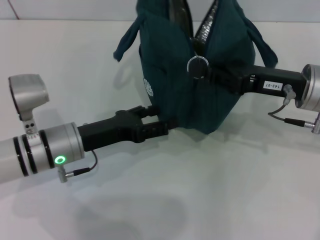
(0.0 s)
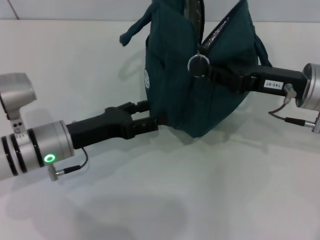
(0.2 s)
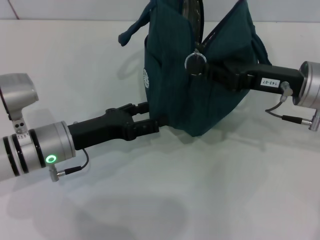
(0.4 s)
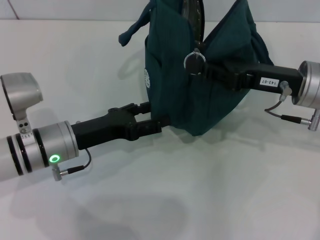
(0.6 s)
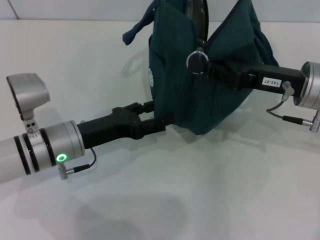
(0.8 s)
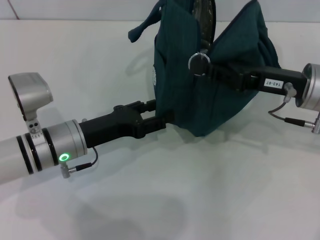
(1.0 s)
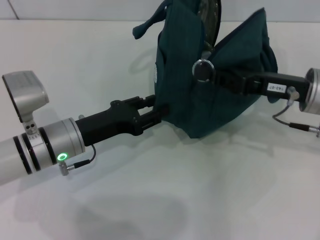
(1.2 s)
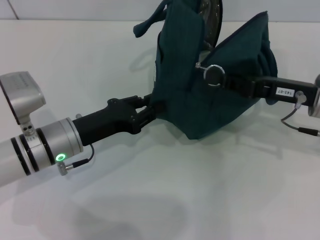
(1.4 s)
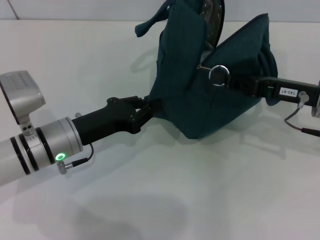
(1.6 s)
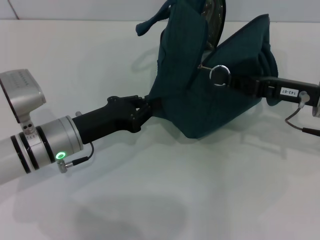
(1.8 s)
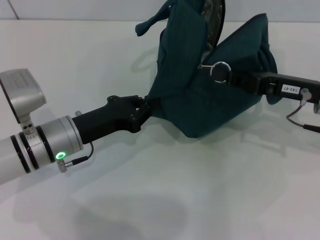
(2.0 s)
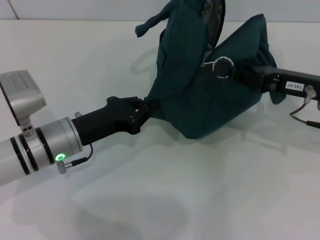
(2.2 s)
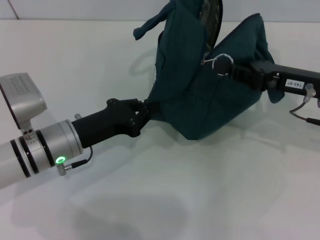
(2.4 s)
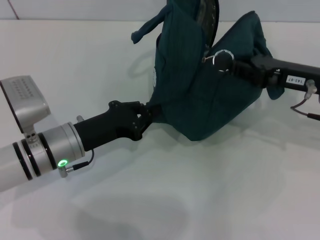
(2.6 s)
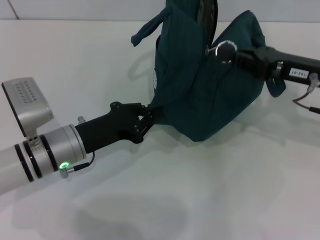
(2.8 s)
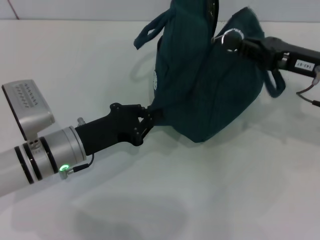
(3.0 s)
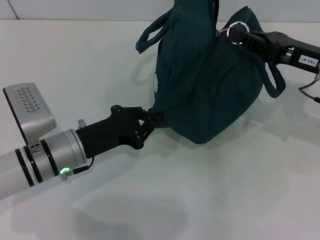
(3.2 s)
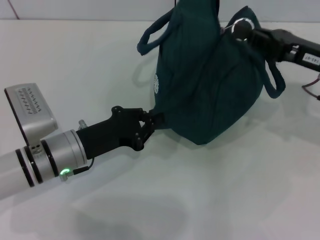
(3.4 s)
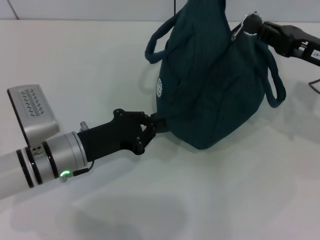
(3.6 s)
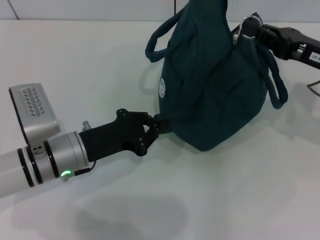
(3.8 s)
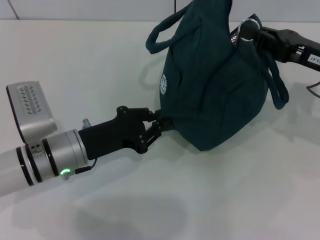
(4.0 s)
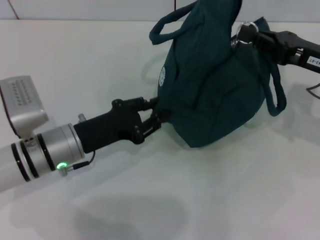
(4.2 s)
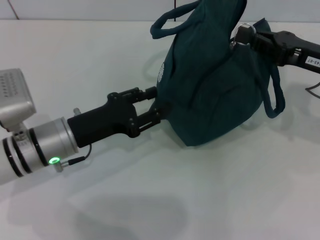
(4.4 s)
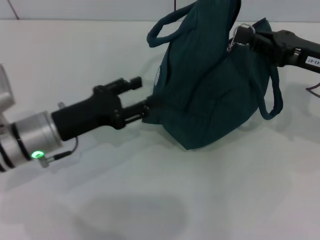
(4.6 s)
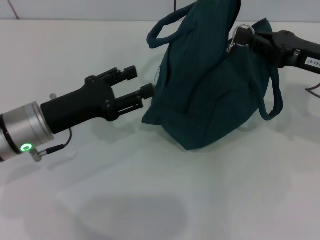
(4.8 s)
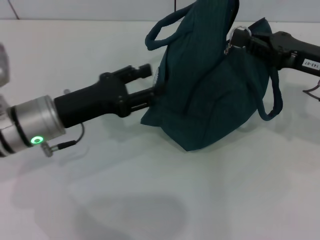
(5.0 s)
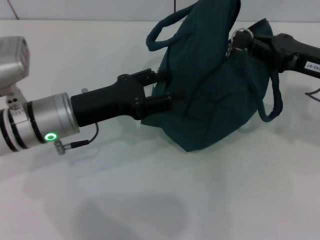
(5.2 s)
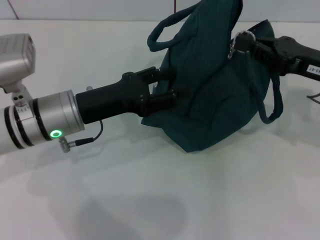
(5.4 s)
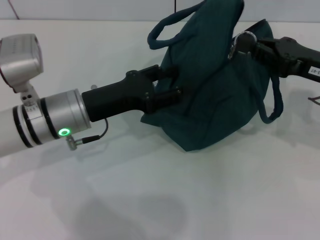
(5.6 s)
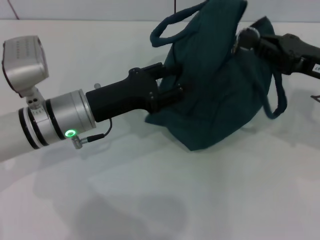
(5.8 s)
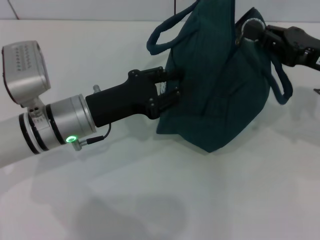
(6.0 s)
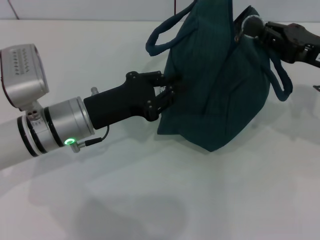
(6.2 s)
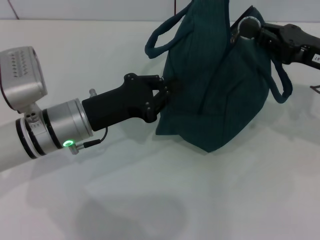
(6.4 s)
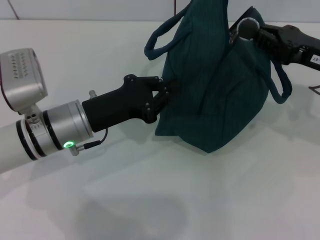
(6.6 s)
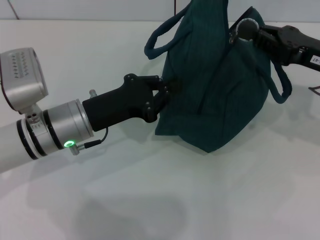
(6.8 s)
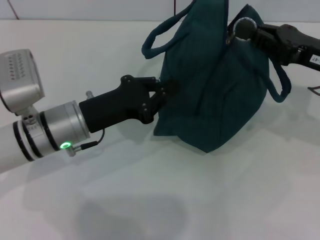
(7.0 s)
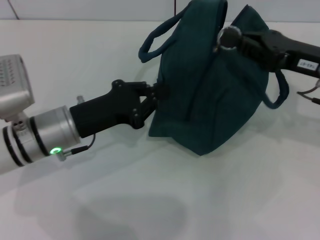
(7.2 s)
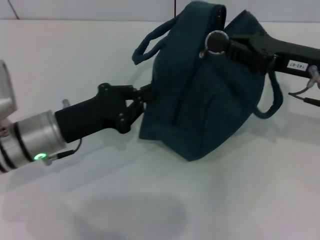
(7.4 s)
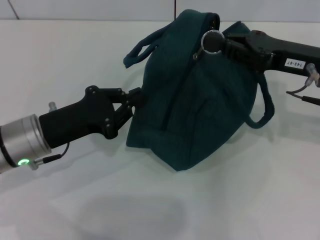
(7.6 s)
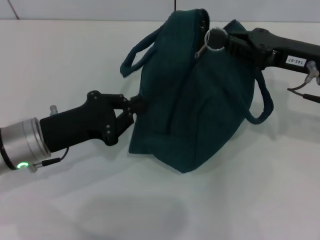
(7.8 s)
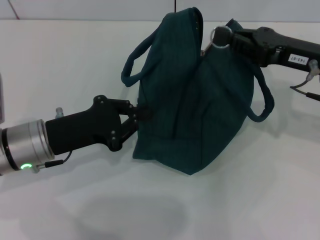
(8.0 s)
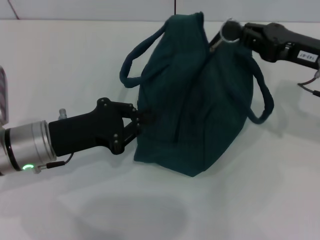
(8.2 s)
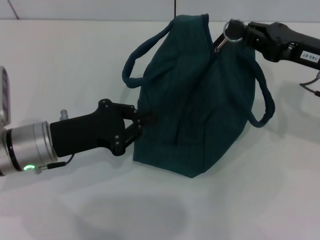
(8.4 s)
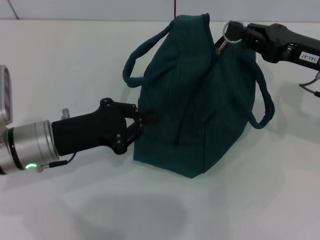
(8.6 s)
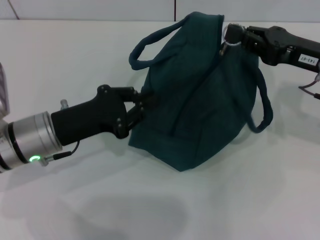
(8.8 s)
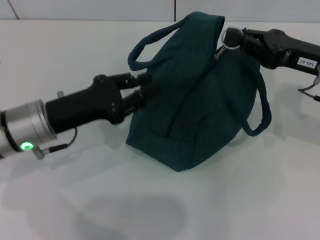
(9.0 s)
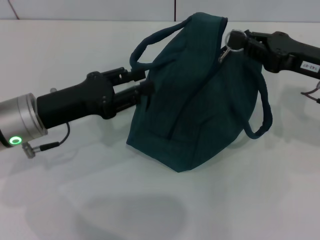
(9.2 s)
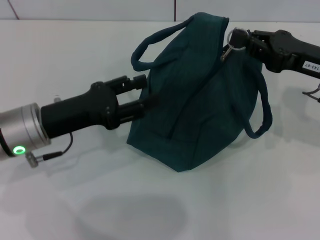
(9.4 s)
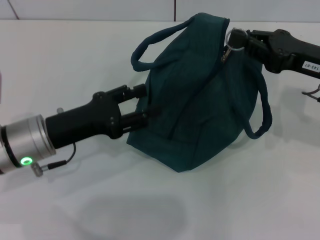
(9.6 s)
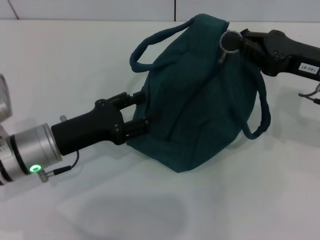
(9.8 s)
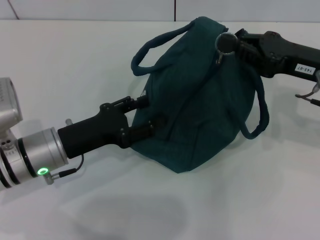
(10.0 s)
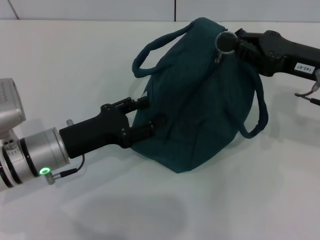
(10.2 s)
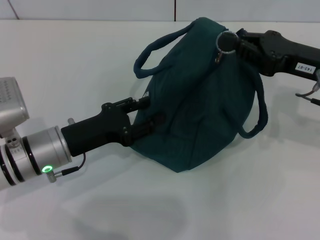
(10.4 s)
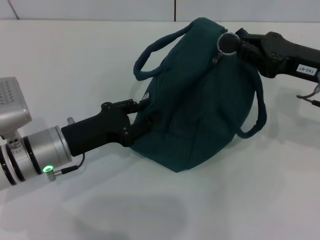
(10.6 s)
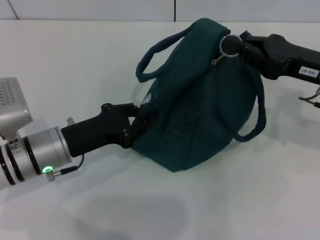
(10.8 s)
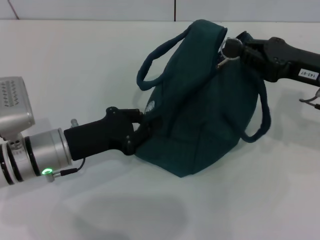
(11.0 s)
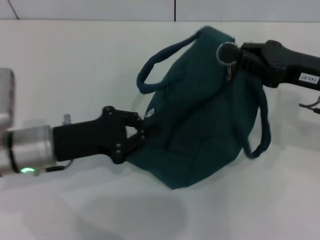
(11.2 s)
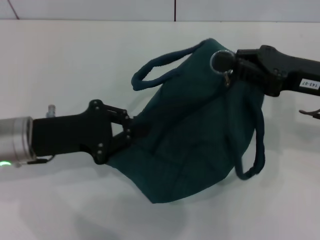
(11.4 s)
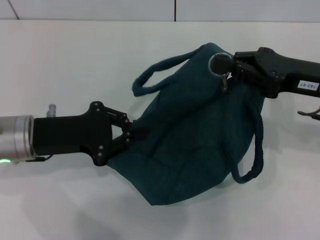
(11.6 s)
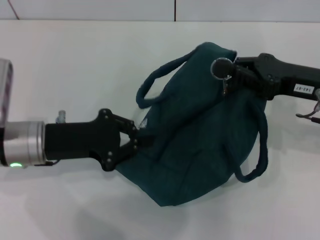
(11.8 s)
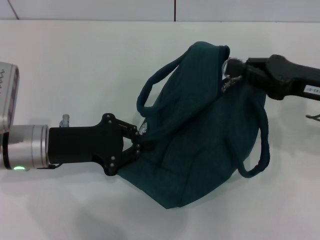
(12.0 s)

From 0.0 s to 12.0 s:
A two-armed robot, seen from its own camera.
From 0.0 s to 1.6 s: The left gripper closes up.
From 1.6 s to 3.0 s: The left gripper closes up.
From 3.0 s to 4.4 s: The grippers stay close to where they were, moving slightly.
From 6.0 s to 7.6 s: The left gripper heads to the left, covering roughly 5 cm, and closes.
From 7.6 s to 9.0 s: The grippers stay close to where they were, moving slightly.
From 9.0 s to 10.4 s: The left gripper opens.
From 10.4 s to 12.0 s: The left gripper closes its fingers.

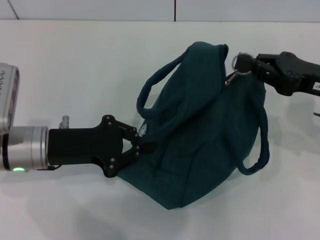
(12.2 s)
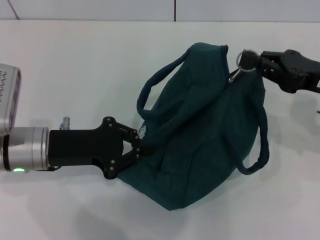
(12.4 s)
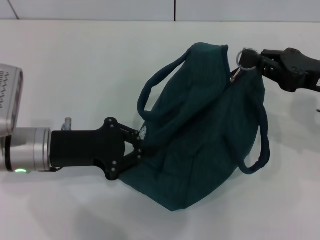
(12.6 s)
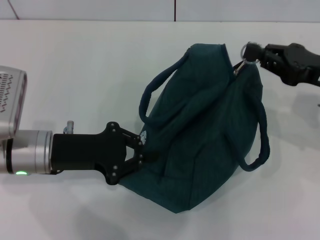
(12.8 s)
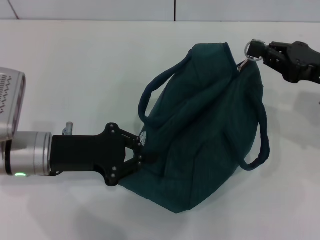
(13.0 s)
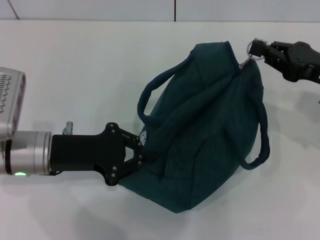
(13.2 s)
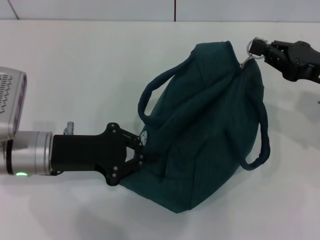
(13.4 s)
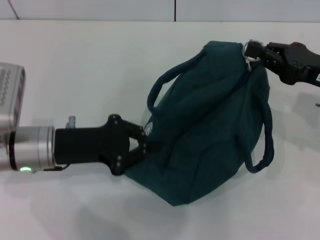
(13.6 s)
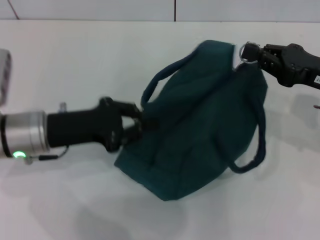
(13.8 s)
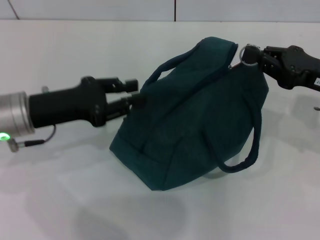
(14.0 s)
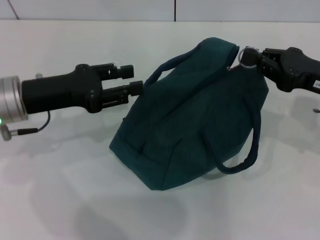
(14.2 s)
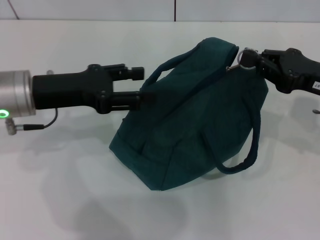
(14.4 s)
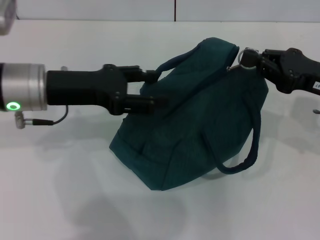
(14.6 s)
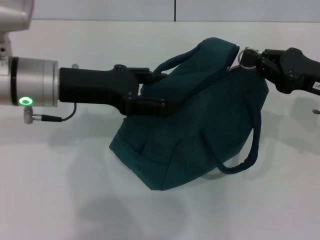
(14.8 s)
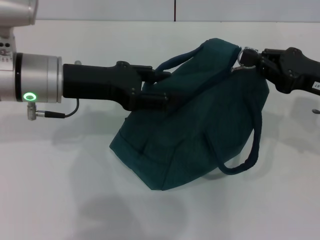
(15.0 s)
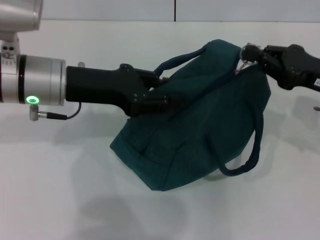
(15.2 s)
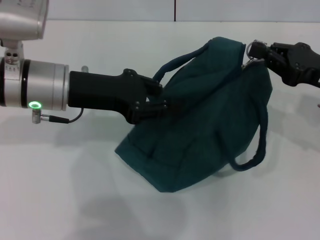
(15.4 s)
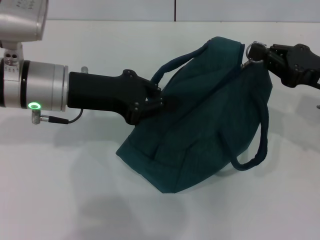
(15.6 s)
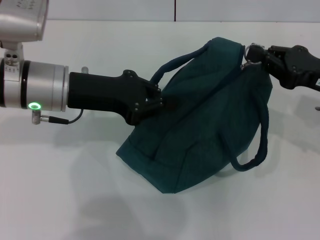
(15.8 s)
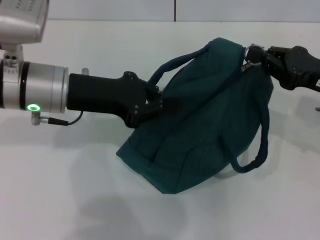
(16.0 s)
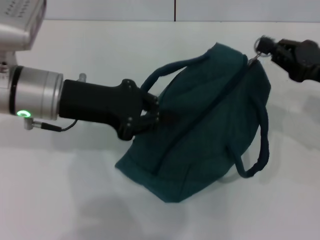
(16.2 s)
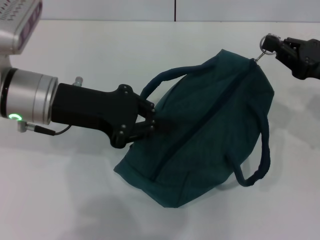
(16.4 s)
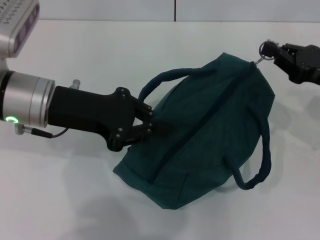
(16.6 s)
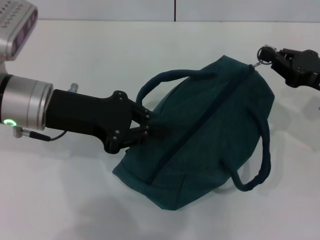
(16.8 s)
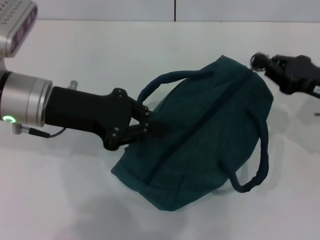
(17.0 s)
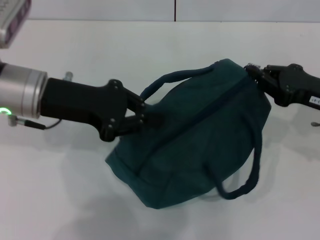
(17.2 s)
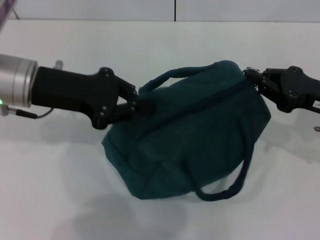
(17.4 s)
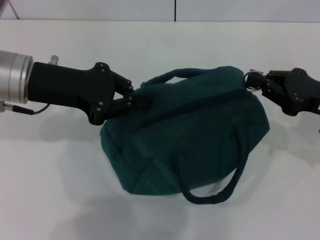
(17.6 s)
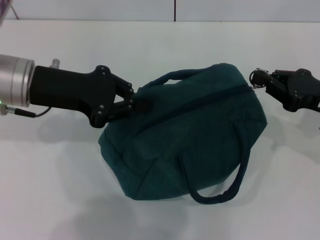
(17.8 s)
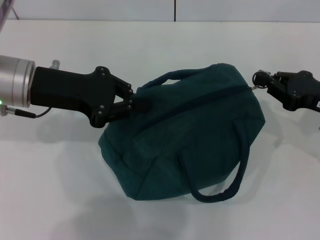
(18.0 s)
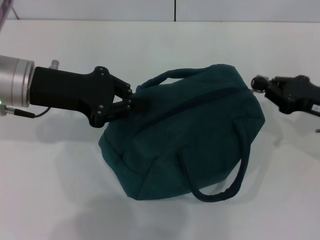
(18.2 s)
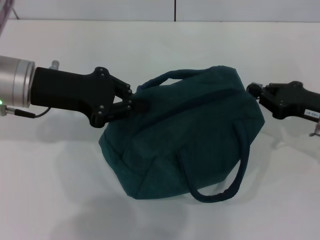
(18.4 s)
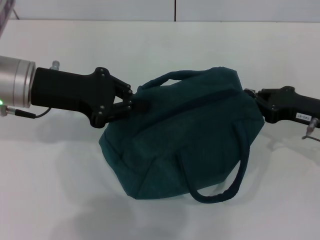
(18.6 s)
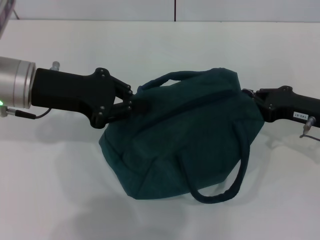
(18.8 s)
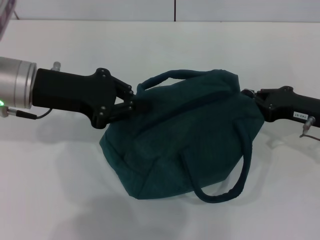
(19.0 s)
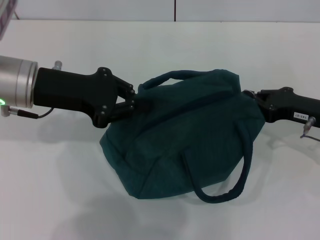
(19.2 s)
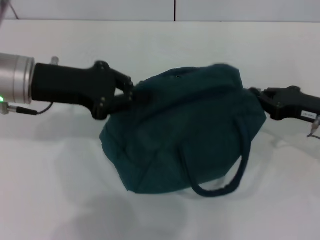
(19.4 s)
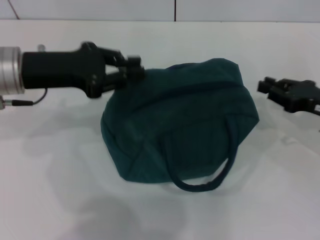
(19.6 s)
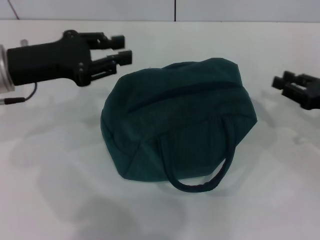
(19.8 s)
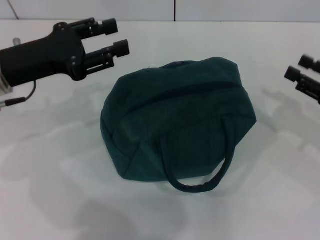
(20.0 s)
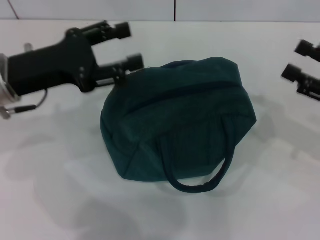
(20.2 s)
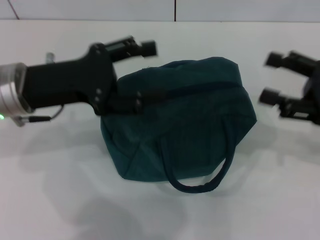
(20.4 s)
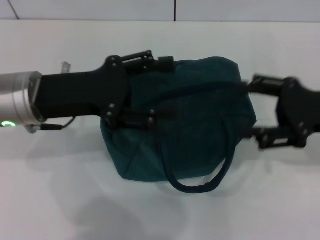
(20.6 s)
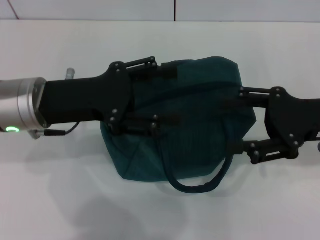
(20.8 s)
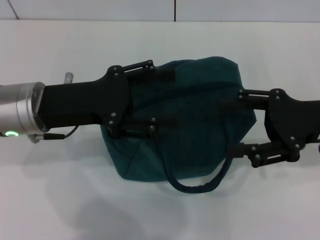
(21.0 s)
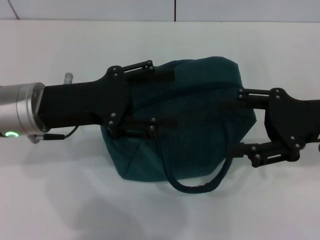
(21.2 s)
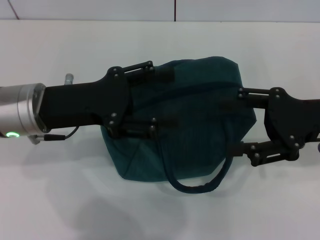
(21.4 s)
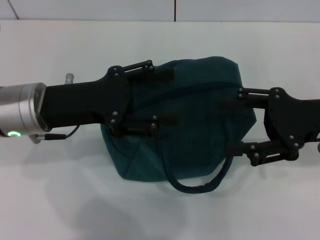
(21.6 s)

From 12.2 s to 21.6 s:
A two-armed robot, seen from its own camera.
Step, from 12.2 s to 19.4 s: Zip up the lunch bag with your right hand.
Step, from 19.6 s to 20.2 s: Hold the lunch bag with your left hand.
From 12.2 s to 13.8 s: The grippers move only a little.
From 13.8 s to 15.4 s: The left gripper travels upward by about 5 cm, and opens, then closes once more.
From 15.4 s to 17.0 s: The left gripper closes up.
From 18.4 s to 20.0 s: The left gripper opens. Meanwhile the right gripper shifts by about 5 cm, and opens its fingers.
From 20.0 s to 21.6 s: The right gripper goes approximately 10 cm to the left and upward, and opens its fingers, while the left gripper travels to the right by approximately 5 cm, and opens.
